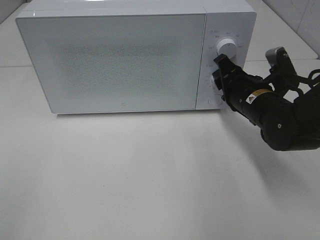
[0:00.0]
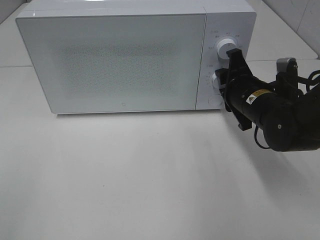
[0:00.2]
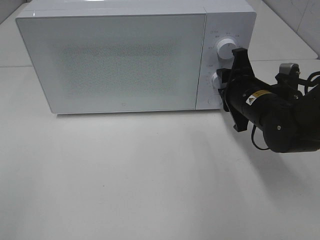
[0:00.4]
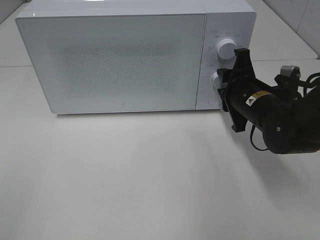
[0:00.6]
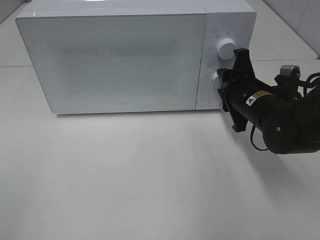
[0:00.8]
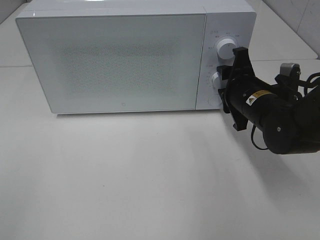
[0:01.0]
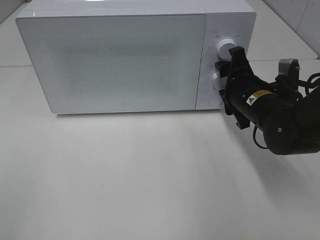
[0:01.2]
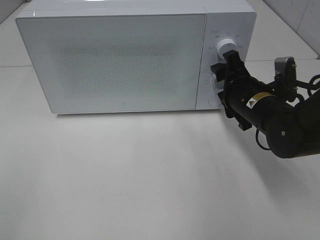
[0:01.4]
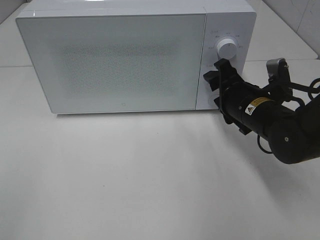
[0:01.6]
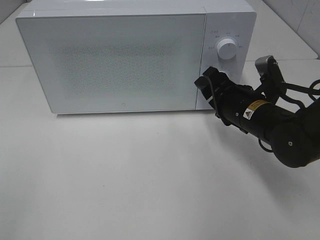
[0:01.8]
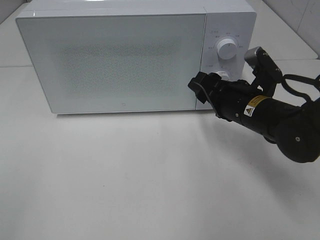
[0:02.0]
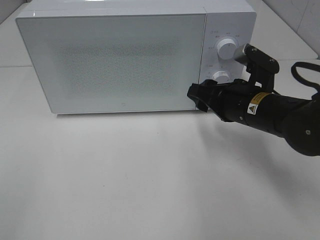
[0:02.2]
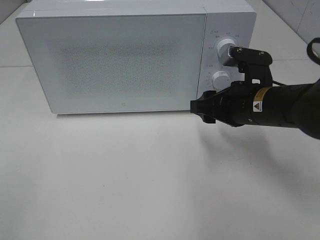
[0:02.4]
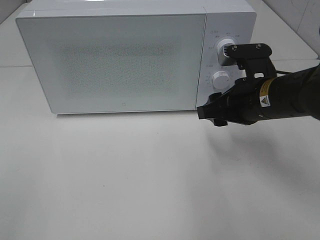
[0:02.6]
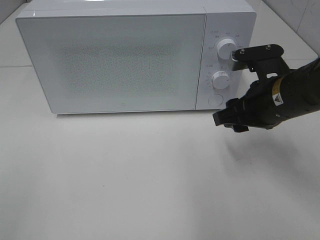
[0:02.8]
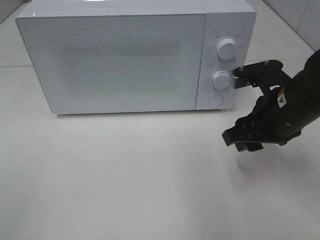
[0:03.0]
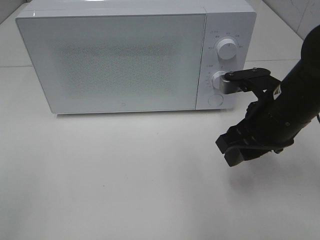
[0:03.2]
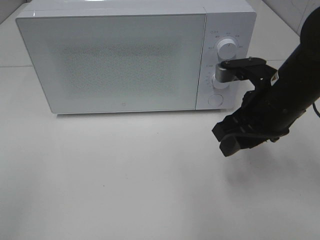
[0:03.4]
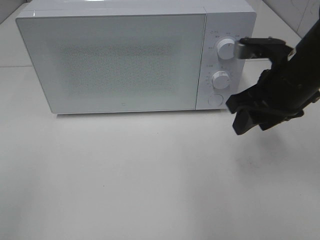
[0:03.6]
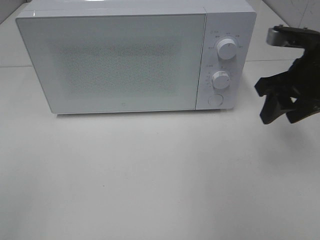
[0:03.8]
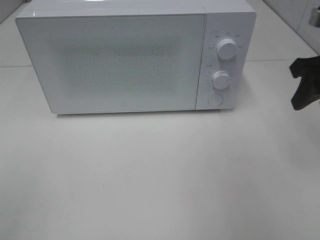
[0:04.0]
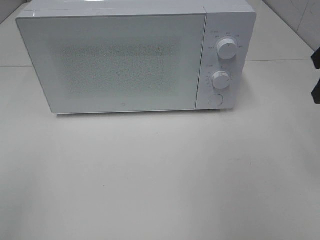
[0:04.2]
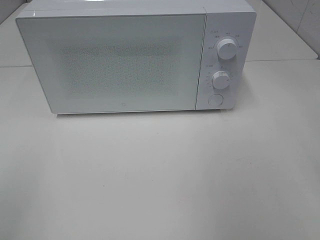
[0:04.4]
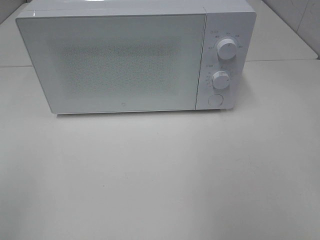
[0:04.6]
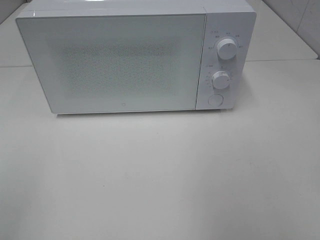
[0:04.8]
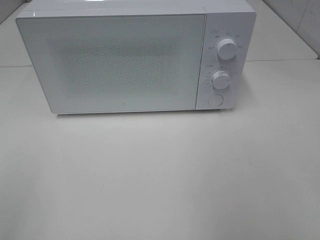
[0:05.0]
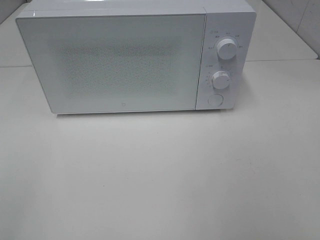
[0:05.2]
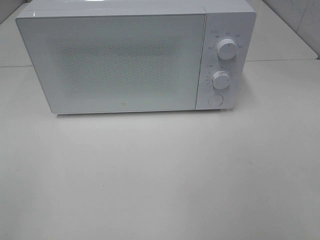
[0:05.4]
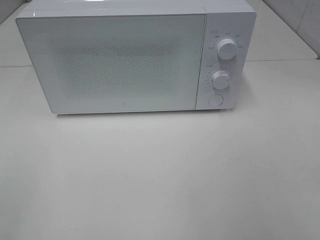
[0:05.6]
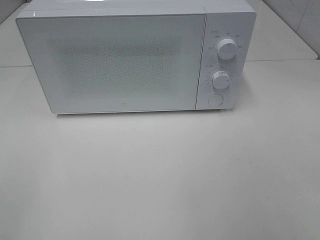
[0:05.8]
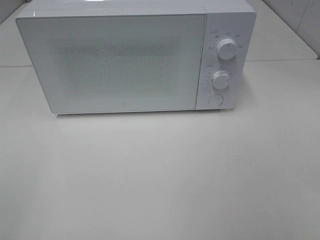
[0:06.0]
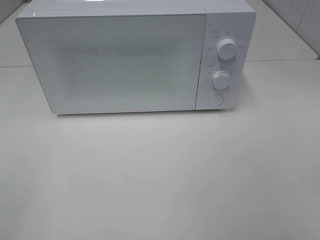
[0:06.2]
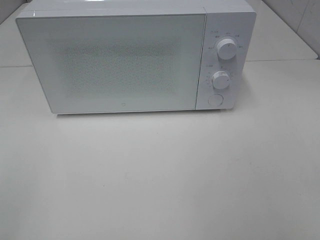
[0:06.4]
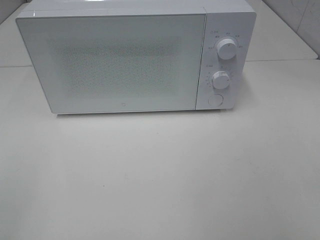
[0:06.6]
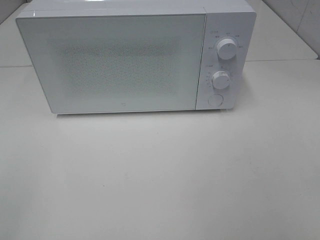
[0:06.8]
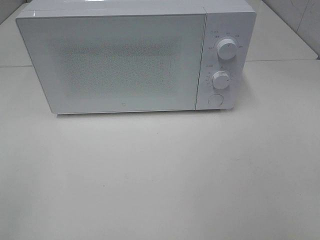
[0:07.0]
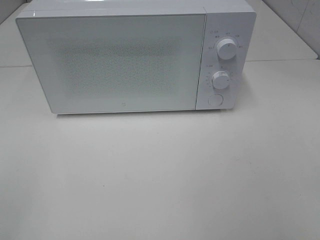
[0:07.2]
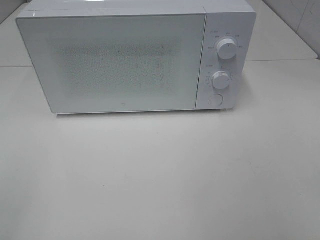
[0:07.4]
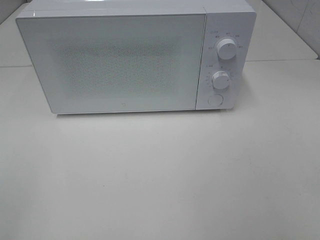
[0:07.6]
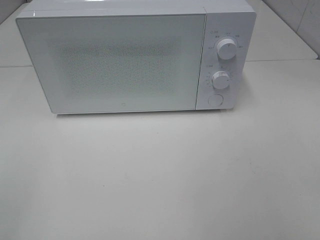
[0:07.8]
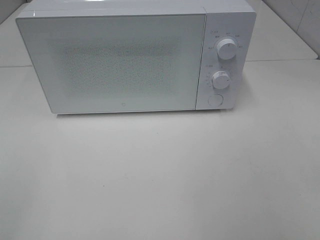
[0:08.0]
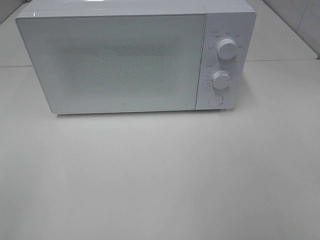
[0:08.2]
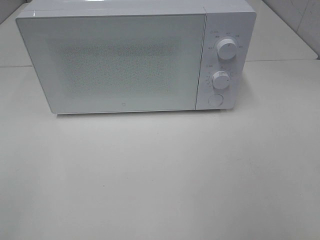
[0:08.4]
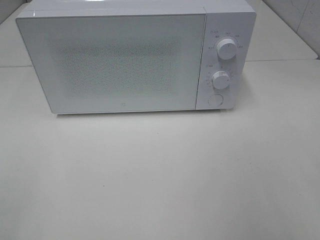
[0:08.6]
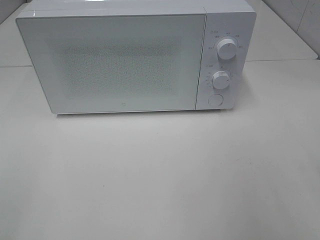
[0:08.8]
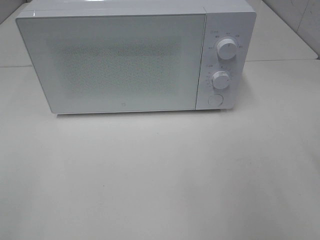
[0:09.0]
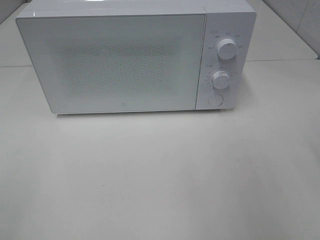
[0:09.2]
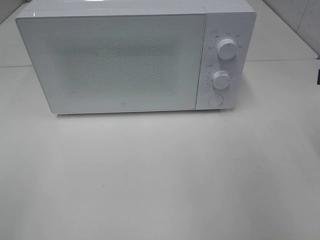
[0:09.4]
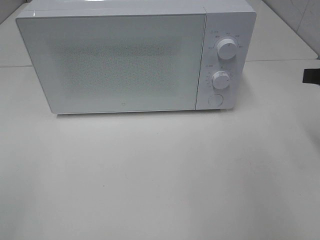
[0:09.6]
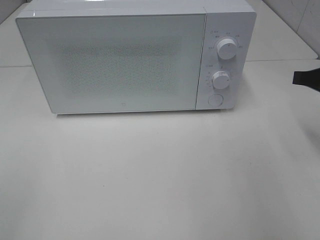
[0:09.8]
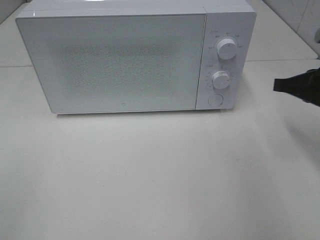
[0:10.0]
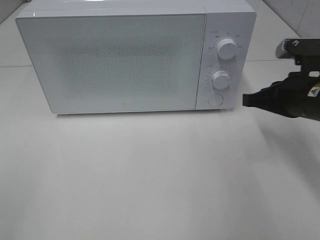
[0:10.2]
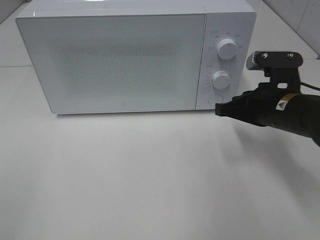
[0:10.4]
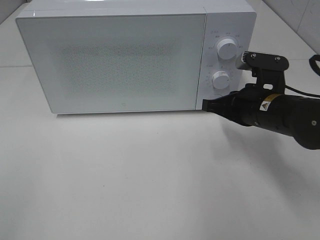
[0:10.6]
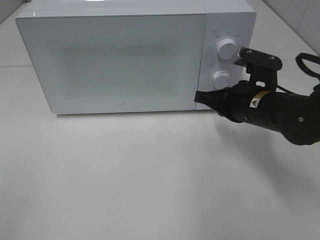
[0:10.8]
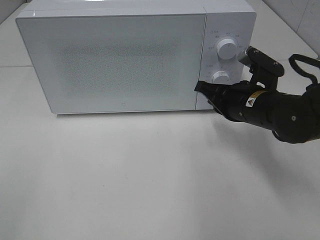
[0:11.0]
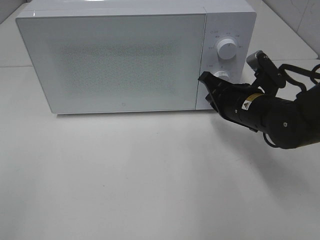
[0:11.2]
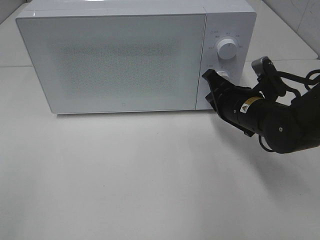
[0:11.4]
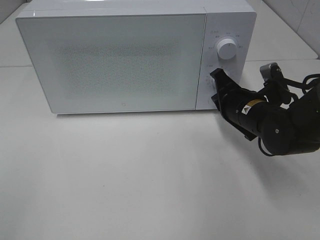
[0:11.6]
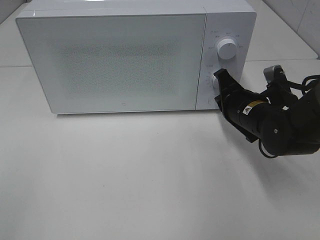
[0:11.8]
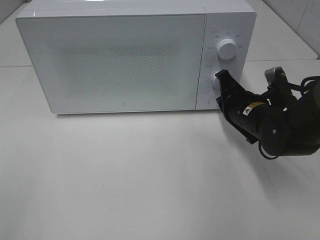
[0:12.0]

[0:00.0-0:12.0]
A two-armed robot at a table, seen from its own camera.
Task of the whole recording: Heat the burger.
0:01.6 to 0:03.0: The right gripper travels upward by about 5 cm.
0:03.0 to 0:04.4: The right gripper travels upward and to the right by approximately 20 cm.
0:09.0 to 0:10.4: The right gripper travels downward, forward and to the left by roughly 20 cm, and closes its fingers.
0:10.4 to 0:12.0: The right gripper moves roughly 5 cm.

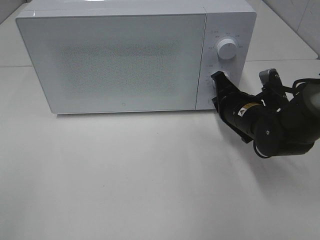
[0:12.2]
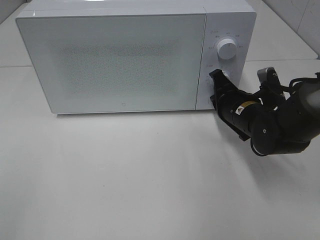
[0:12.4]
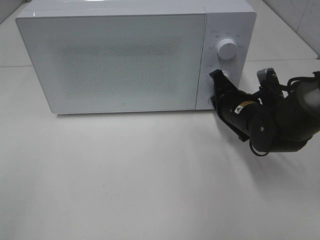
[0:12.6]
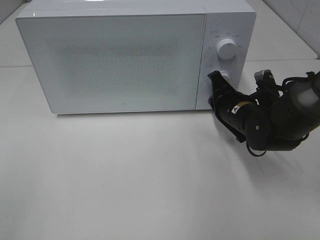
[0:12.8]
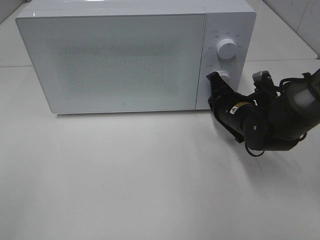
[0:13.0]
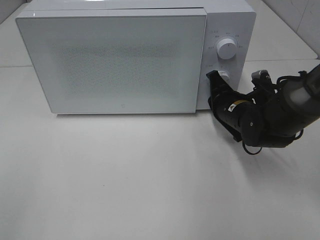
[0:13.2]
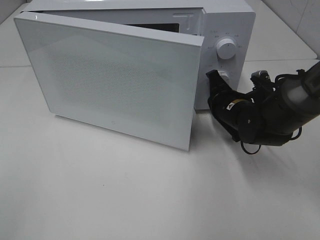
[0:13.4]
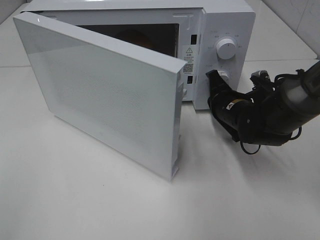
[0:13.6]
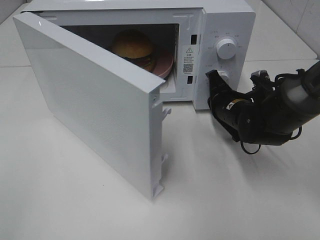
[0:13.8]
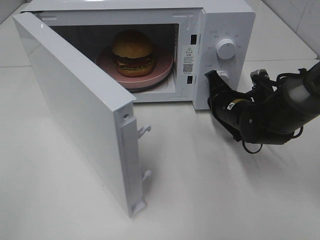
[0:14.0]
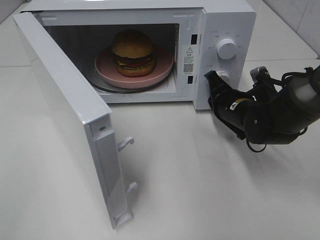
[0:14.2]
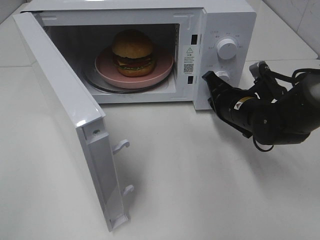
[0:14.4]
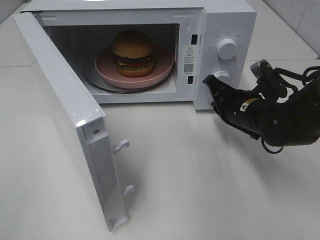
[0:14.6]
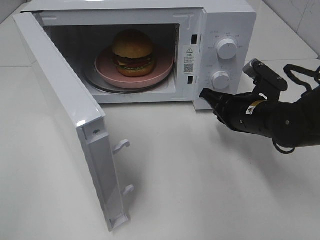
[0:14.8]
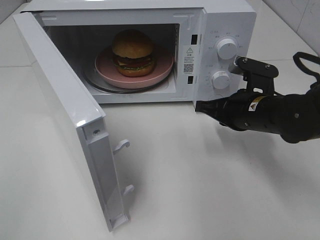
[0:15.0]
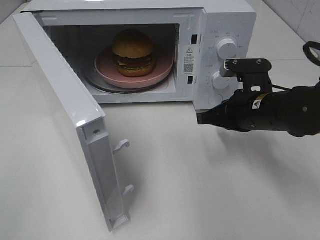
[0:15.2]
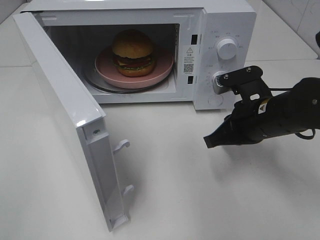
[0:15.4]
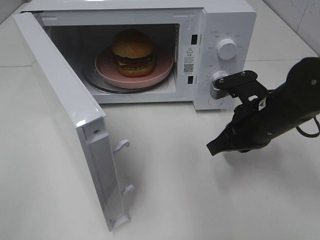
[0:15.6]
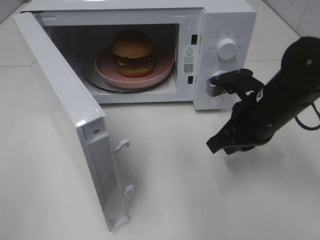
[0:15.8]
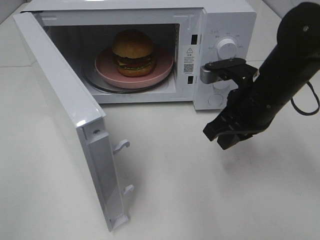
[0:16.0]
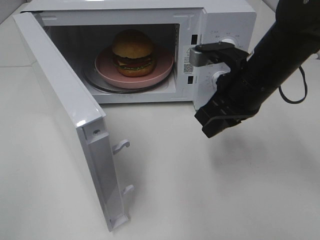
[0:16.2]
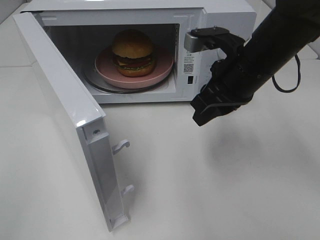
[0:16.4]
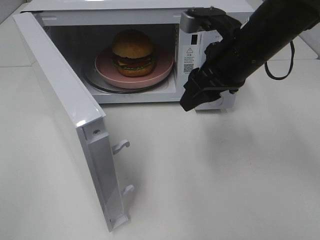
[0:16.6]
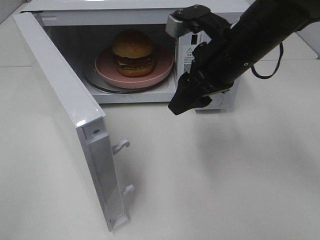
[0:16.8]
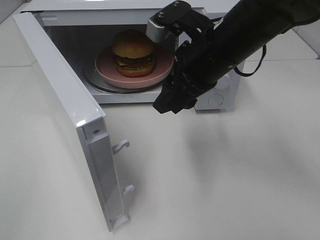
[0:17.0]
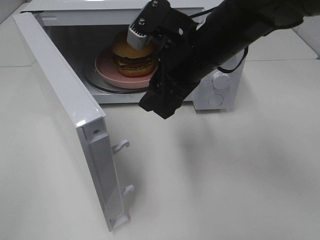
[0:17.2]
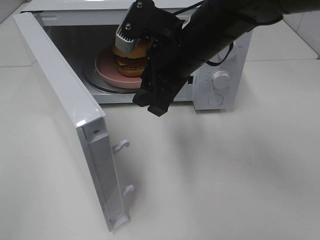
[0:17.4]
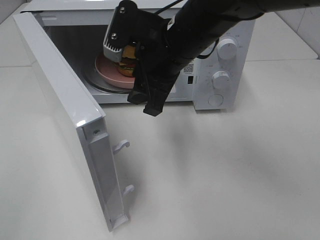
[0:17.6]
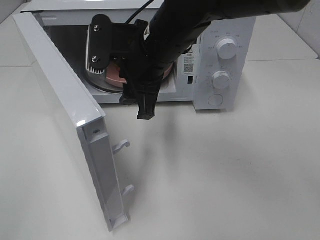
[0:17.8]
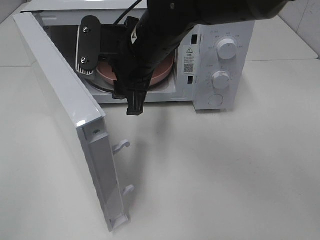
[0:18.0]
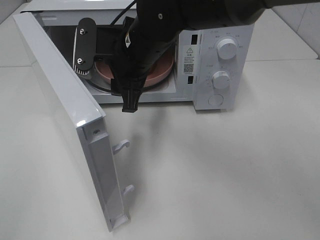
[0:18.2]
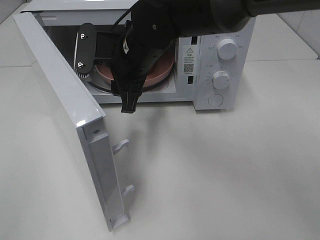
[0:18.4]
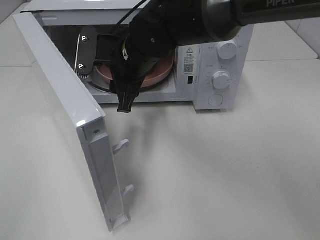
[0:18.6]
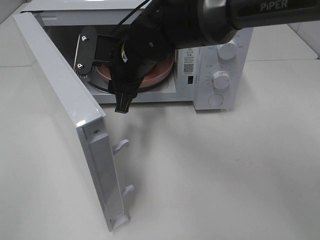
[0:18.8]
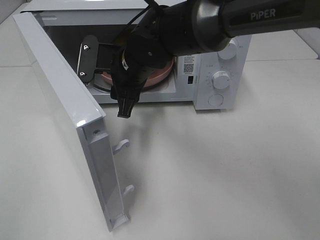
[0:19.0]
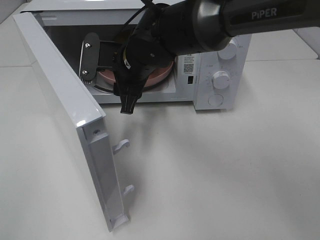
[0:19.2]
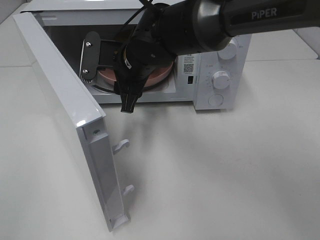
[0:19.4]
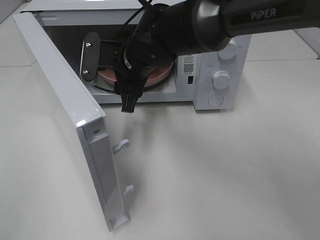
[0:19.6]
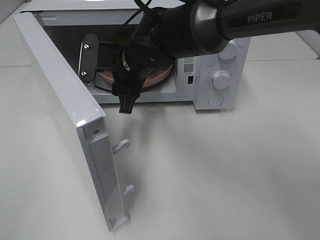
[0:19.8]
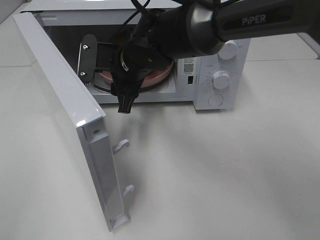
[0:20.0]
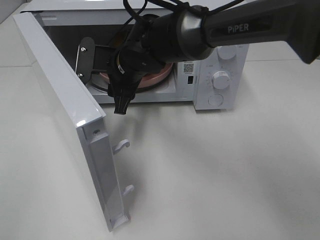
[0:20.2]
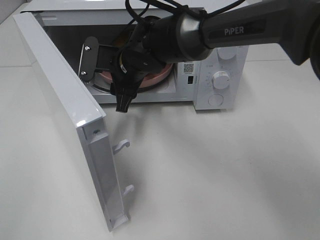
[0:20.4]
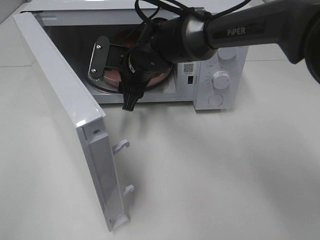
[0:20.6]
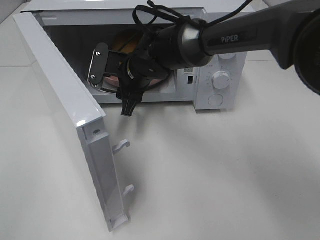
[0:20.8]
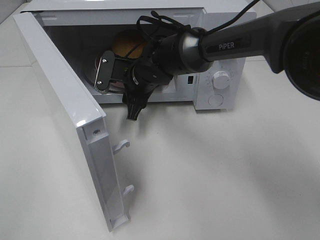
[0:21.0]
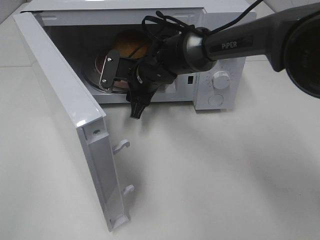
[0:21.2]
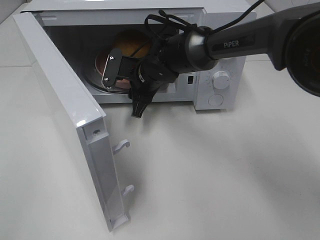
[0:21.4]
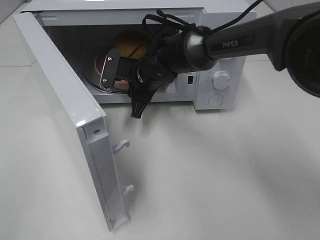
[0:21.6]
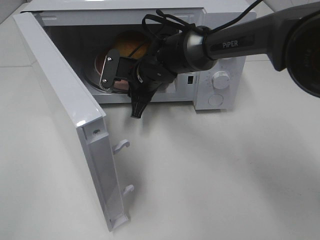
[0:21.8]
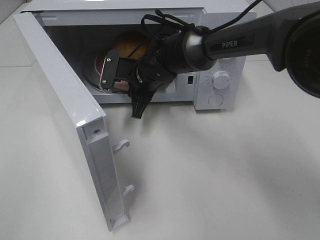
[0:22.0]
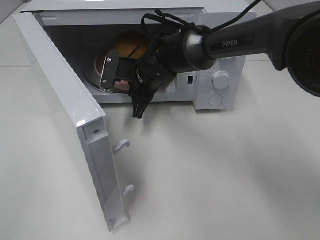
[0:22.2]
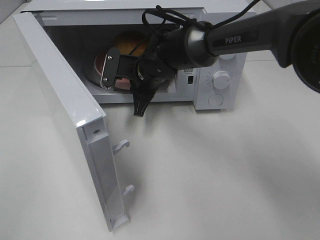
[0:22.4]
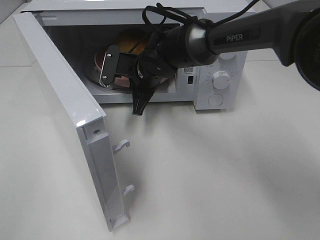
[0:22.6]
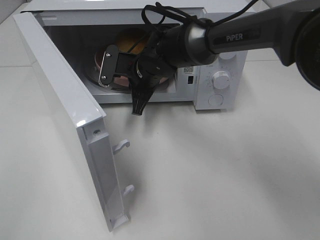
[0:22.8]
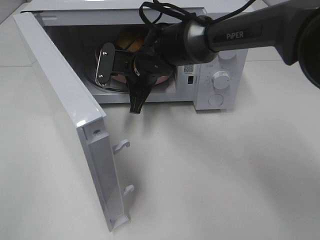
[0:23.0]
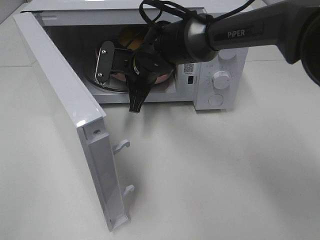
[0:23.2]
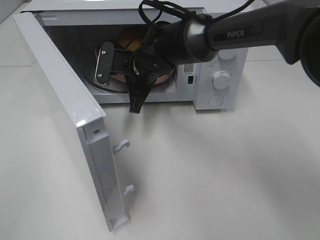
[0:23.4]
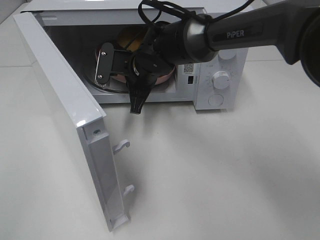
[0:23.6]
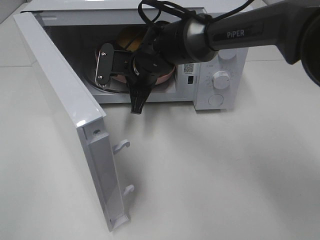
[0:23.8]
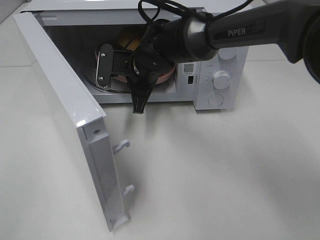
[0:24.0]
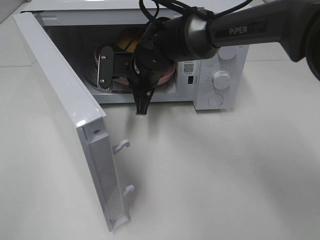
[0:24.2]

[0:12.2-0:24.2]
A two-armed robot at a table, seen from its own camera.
Task of the whole recording: Heat the burger.
Step, 0:12.2 to 0:14.6: Right hand: press the switch.
Step, 0:14.8 to 0:23.8: Right hand: grab the plate with the hamburger.
0:13.8 to 0:15.2: The right gripper is displaced backward and upward by approximately 10 cm.
0:15.2 to 0:16.6: The right gripper moves upward, roughly 10 cm, and opens up.
0:16.6 to 0:18.2: The right gripper goes some 15 cm to the left.
0:18.2 to 0:19.8: The grippers make only small movements.
0:19.8 to 0:21.2: The right gripper shifts approximately 10 cm downward and forward.
0:21.2 to 0:22.6: The right gripper closes.
0:22.6 to 0:24.2: There are only small adjustments of the grippers.
